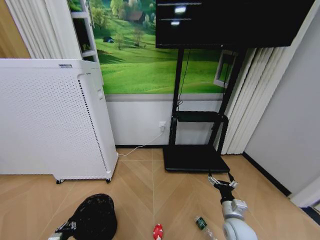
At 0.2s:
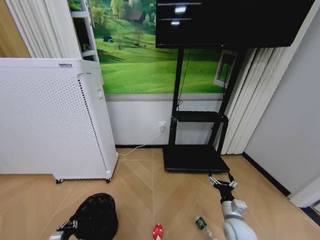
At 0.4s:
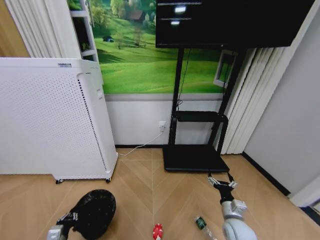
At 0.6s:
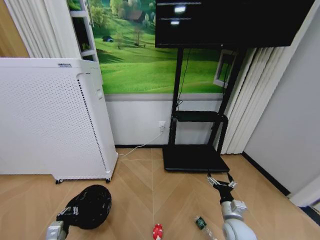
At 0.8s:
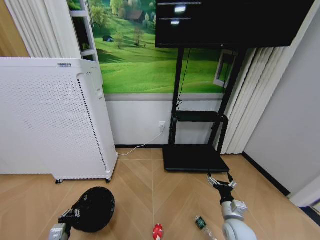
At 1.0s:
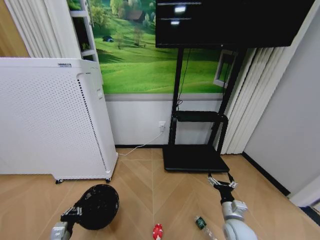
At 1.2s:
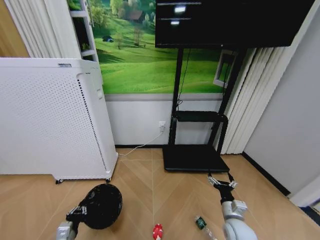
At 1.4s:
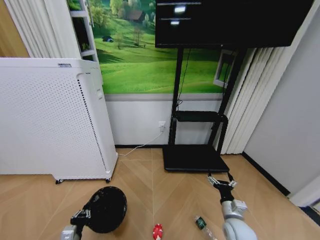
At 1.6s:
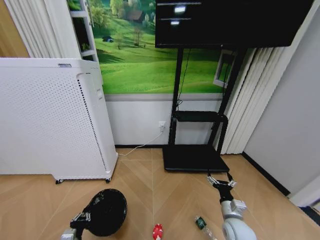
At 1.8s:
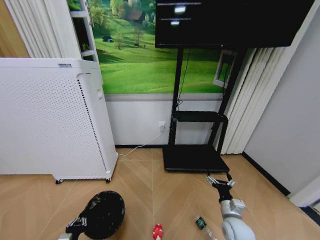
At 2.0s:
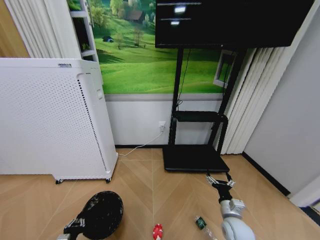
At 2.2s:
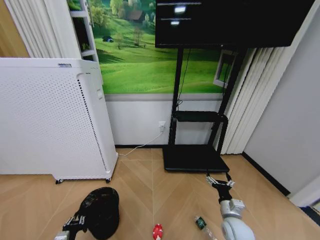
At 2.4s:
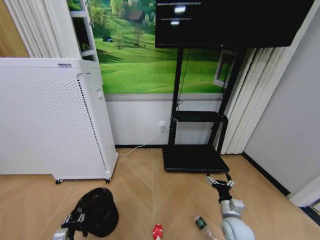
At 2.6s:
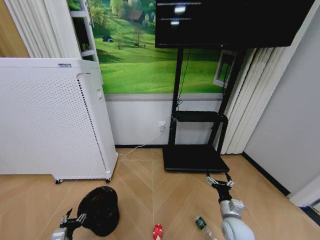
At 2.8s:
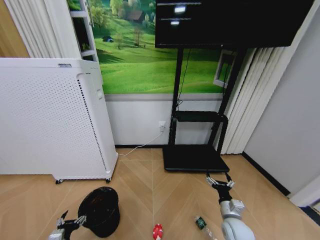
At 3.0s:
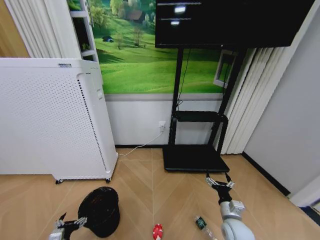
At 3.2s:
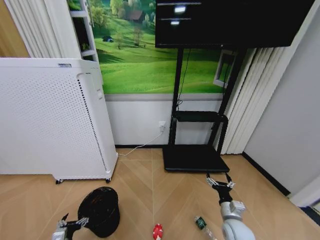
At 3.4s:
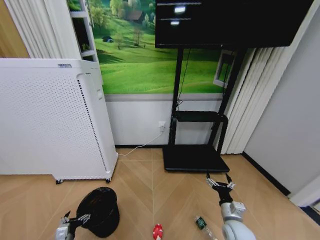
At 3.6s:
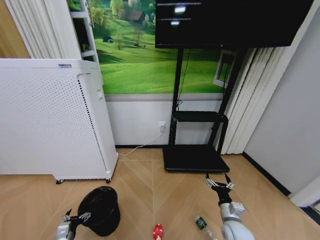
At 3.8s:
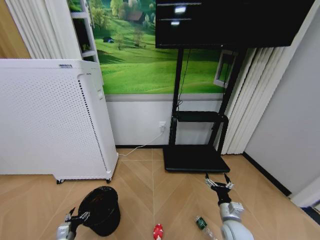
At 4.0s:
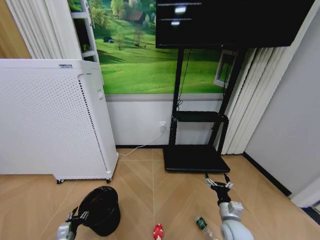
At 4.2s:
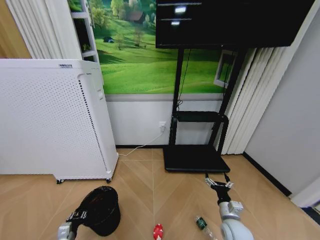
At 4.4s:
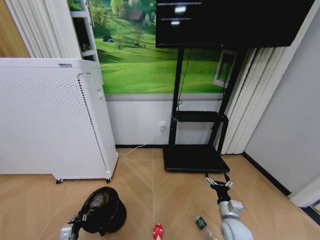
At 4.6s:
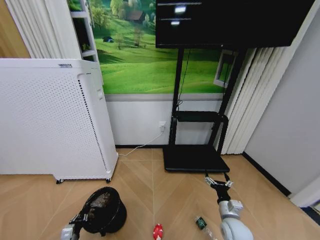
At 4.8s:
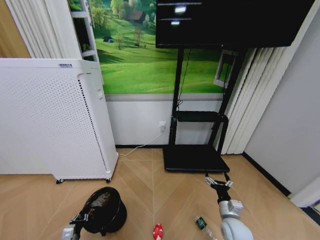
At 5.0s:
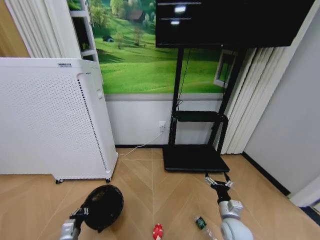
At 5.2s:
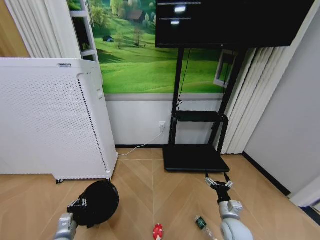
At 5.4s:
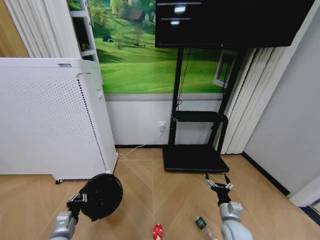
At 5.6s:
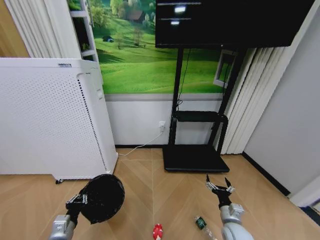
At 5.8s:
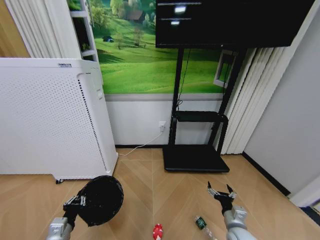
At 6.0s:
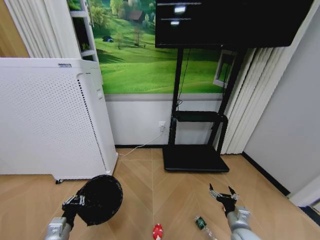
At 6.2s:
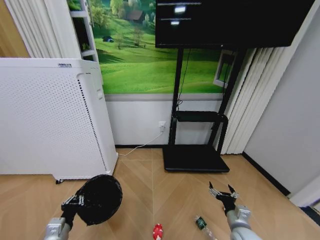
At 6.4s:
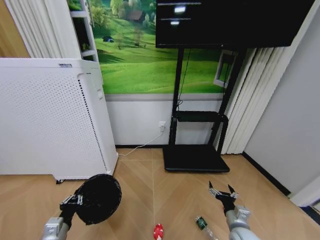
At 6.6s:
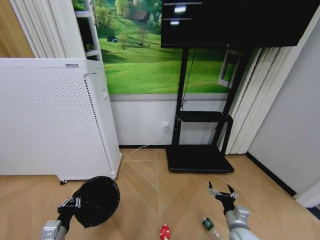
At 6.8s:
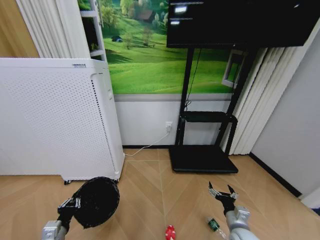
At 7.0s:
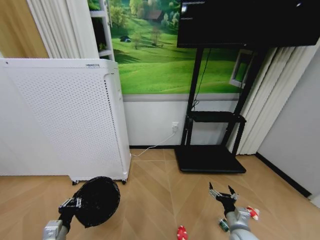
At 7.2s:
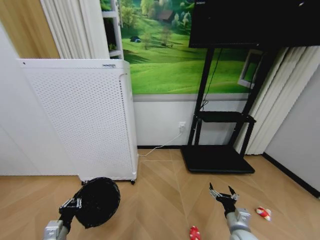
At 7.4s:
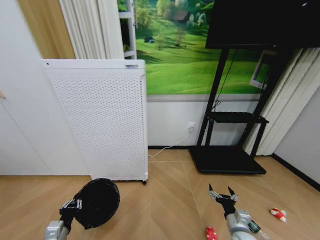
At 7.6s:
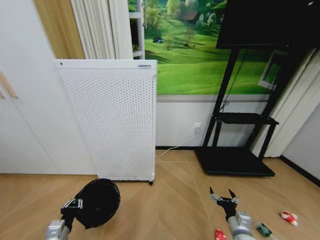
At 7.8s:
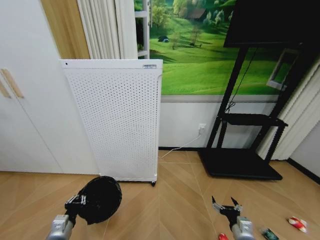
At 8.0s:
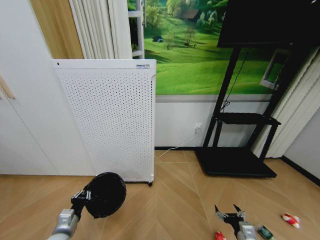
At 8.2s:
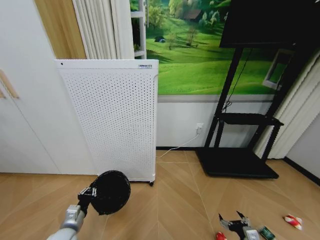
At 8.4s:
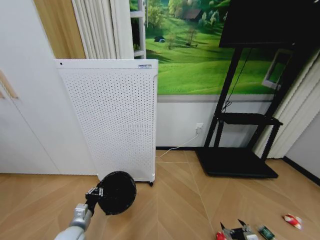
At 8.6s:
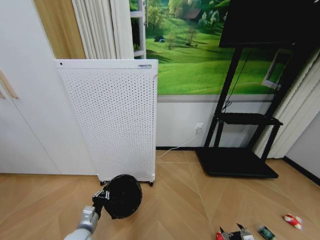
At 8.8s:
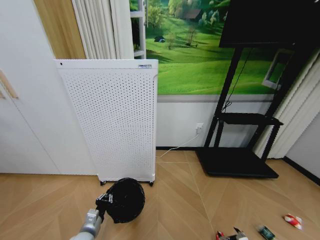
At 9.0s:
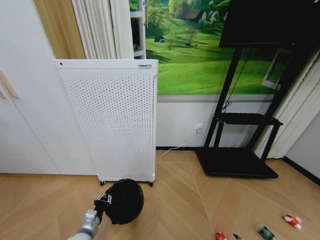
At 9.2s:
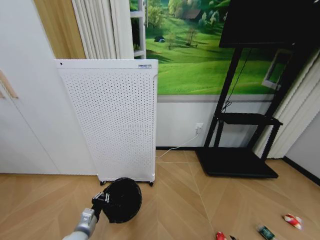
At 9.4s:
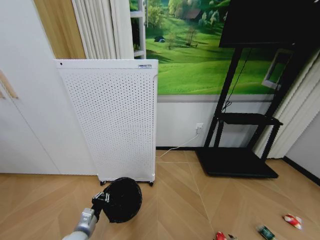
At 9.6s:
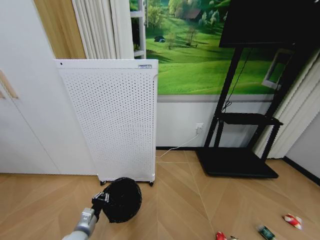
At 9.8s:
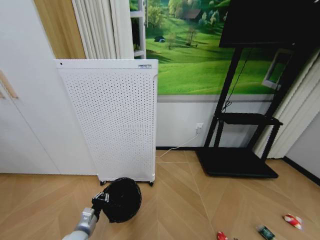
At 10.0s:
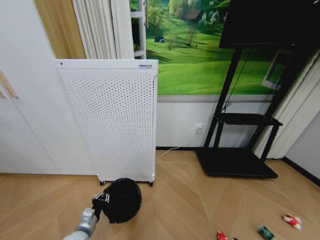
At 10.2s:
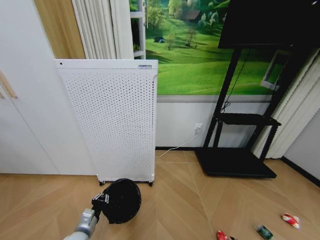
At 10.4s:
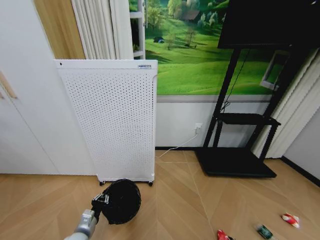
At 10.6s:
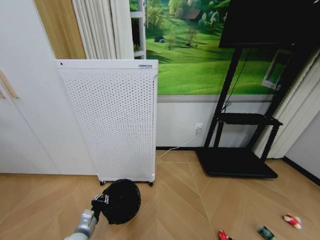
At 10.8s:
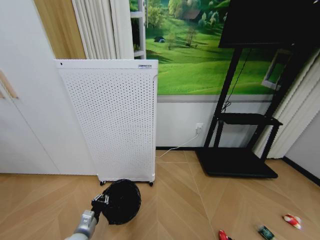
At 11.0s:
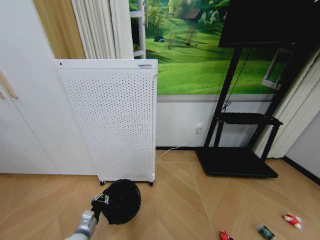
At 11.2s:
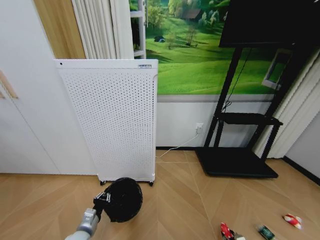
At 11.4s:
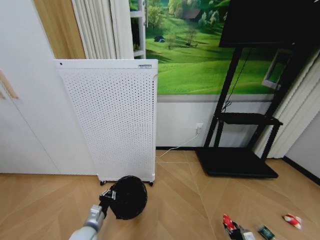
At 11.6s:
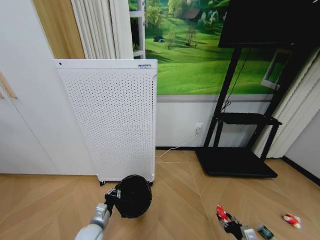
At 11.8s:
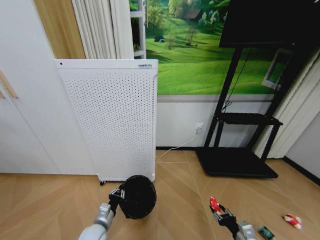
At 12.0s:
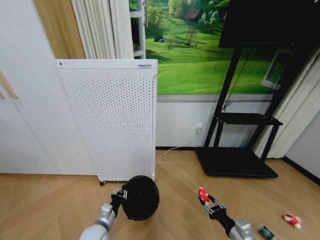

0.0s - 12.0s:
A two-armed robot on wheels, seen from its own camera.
Task of the whole recording: Pick up the trash bin and place the garbage on the floor into it.
0.0s - 1.6s: The left gripper heads to the right, covering approximately 5 cm.
1.6s - 3.0s: The left gripper moves about 5 cm, and opens up.
3.0s - 4.4s: The left gripper changes place by some 5 cm, and closes.
4.4s - 6.0s: The left gripper travels upward by approximately 15 cm.
7.6s - 9.0s: The right gripper goes about 15 cm downward, to the right and backward; the left gripper moves to the right, roughly 5 cm.
9.0s - 10.4s: The right gripper goes approximately 5 cm downward.
10.4s - 12.0s: The right gripper shifts about 25 cm upward, and closes its fingers; the left gripper travels to the right by approximately 5 cm.

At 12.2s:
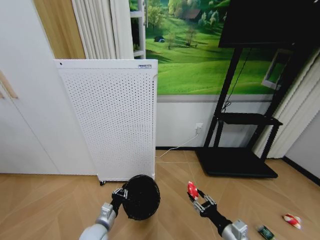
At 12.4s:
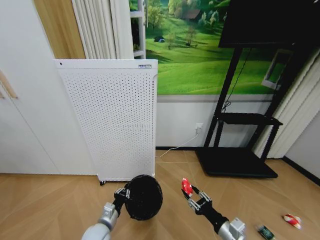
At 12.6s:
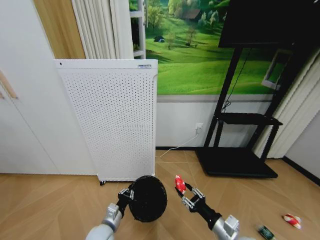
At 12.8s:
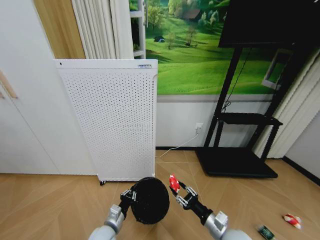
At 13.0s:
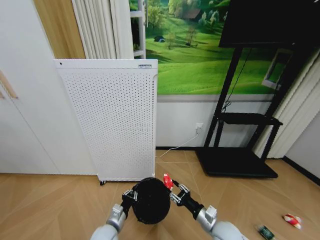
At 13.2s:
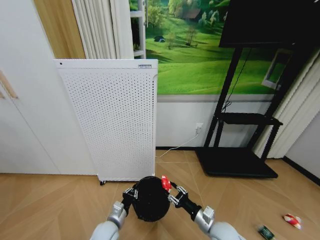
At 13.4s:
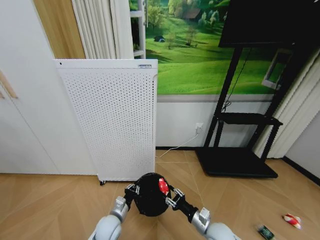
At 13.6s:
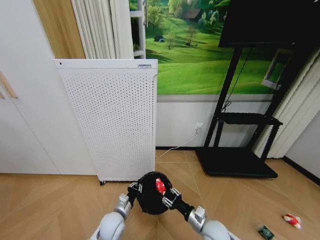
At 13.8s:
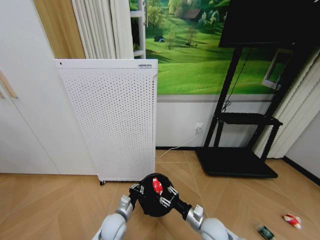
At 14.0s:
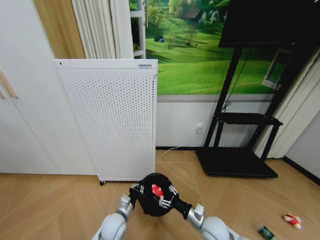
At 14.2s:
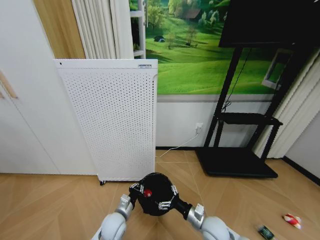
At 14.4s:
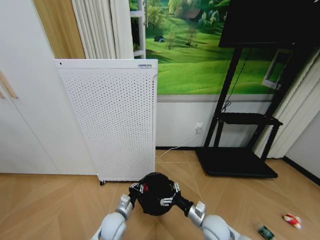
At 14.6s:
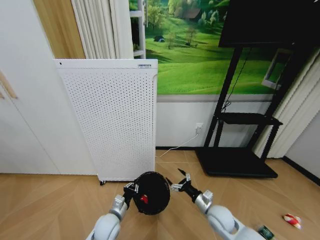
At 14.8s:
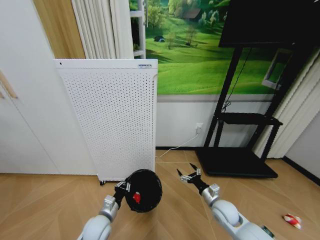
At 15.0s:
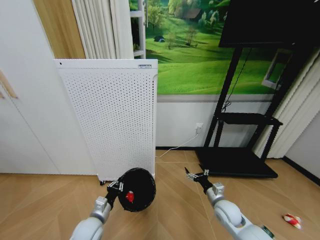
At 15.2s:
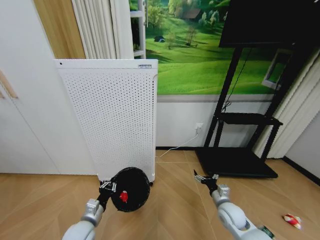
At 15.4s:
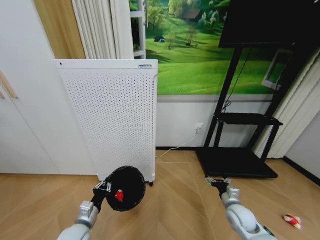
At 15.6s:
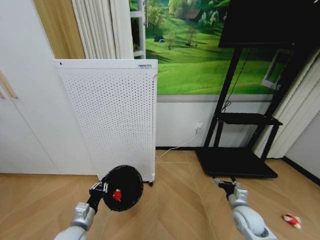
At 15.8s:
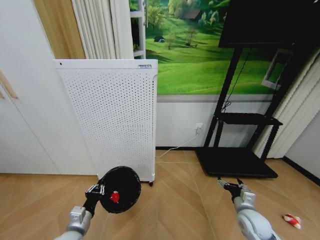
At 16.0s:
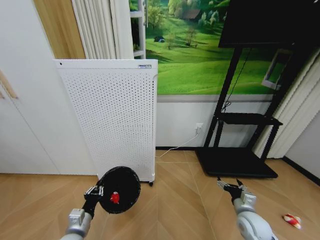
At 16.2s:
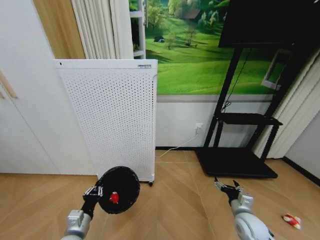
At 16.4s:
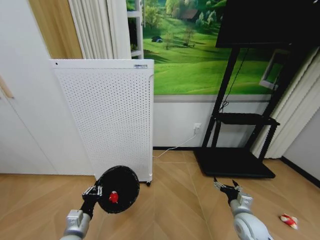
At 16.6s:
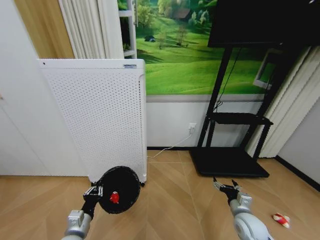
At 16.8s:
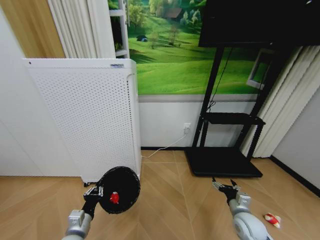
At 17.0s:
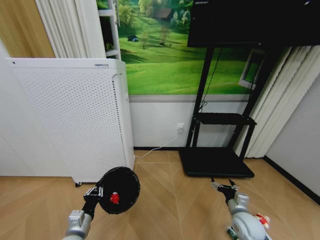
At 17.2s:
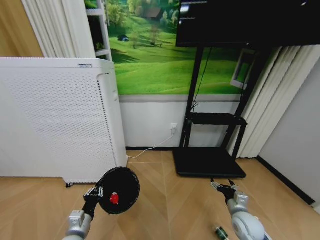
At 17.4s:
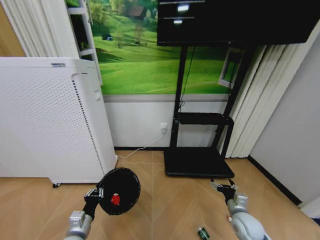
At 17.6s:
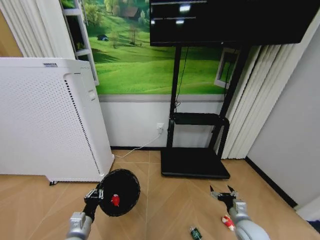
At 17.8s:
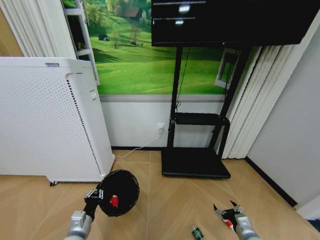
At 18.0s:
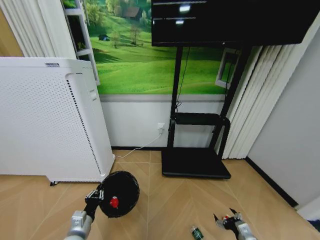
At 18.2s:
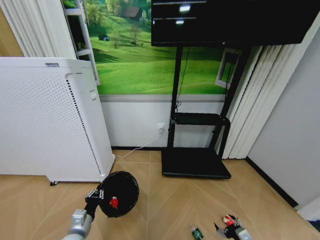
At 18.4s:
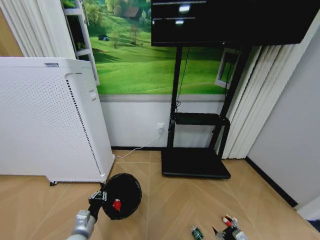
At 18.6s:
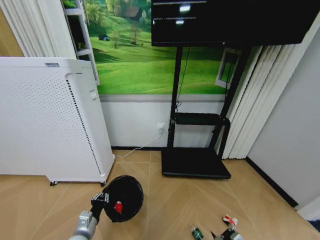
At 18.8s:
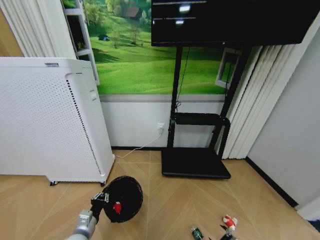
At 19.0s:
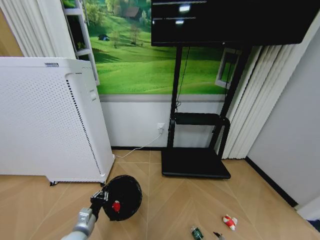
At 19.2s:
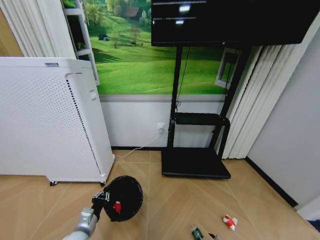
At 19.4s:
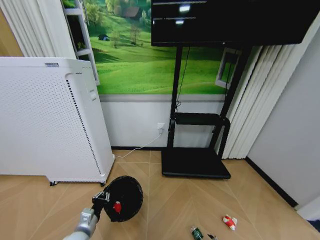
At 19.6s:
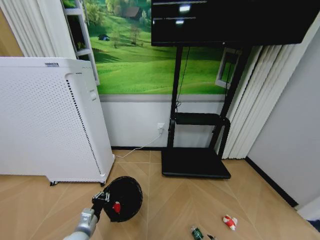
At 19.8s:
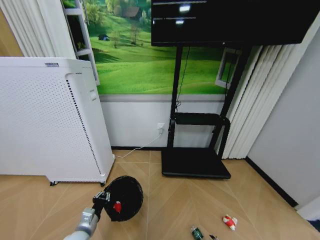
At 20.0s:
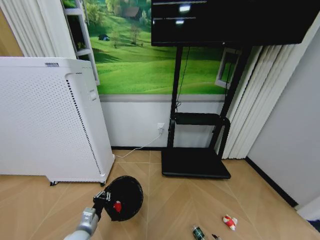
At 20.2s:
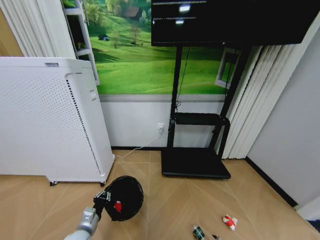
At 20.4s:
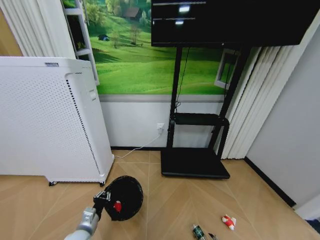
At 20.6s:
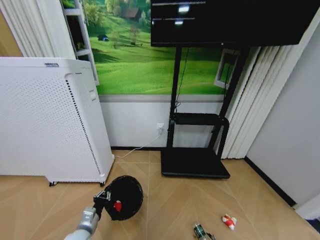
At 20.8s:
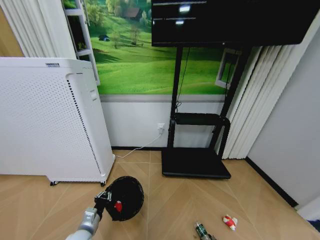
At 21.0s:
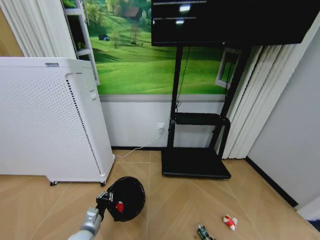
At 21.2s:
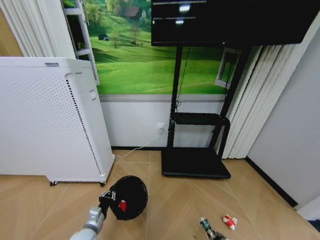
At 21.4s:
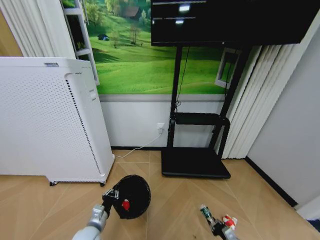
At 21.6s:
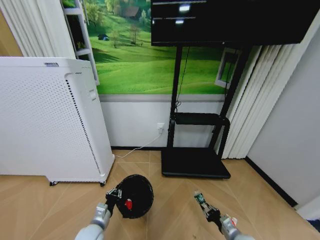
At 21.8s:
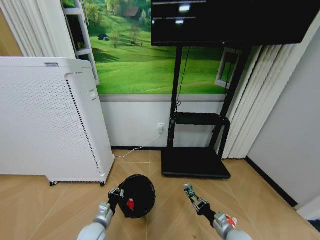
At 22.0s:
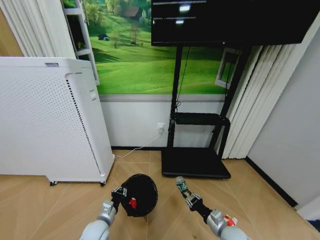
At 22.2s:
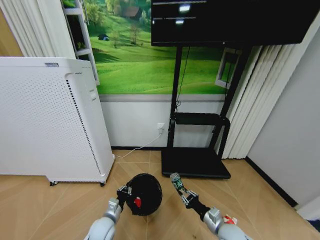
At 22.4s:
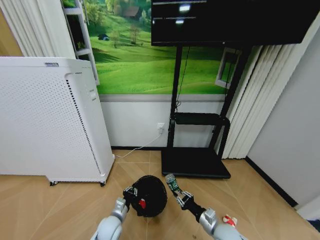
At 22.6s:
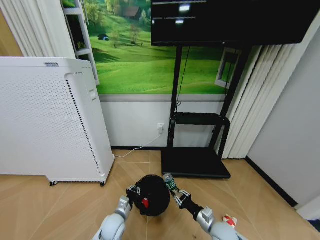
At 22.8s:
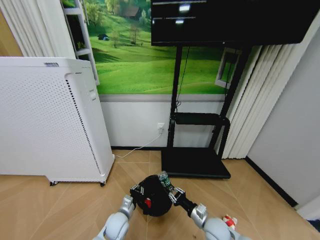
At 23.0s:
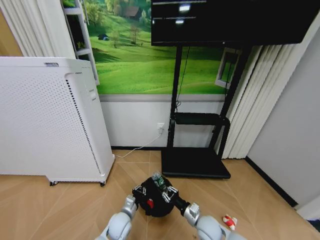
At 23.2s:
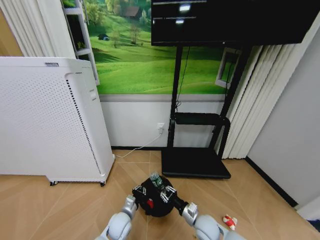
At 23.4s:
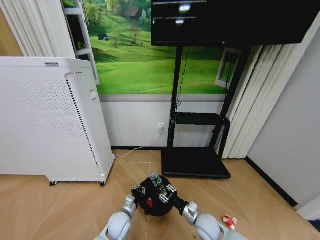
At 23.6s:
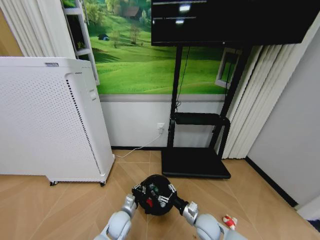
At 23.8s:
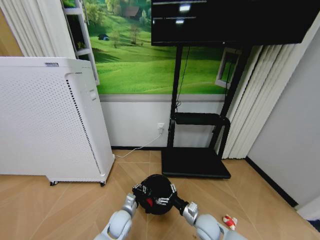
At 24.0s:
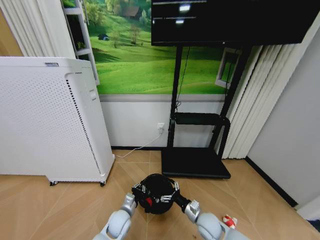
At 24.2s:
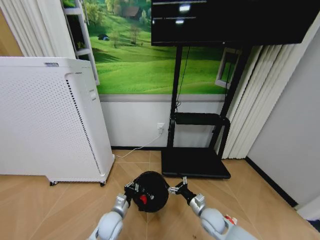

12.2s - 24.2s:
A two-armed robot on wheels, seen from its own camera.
Task of the whole recording: Pick up the trash bin and place the garbage on the floor into it.
12.2s - 13.8s: The right gripper is displaced forward, to the left and downward by roughly 15 cm. The left gripper travels to the right by some 5 cm.
13.8s - 15.2s: The right gripper shifts some 10 cm to the right and forward, and opens; the left gripper goes some 10 cm to the left.
15.2s - 16.6s: The left gripper moves backward, roughly 5 cm, while the right gripper heads to the right, covering about 5 cm.
16.6s - 18.2s: The right gripper is displaced backward and downward by approximately 10 cm.
18.2s - 19.8s: The right gripper goes approximately 15 cm downward.
19.8s - 21.2s: The right gripper closes.
21.2s - 22.6s: The left gripper goes some 10 cm to the right and forward, while the right gripper shifts some 20 cm upward, to the left and forward.
22.6s - 24.2s: The right gripper is displaced forward by some 5 cm, and opens.
